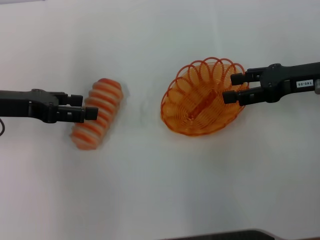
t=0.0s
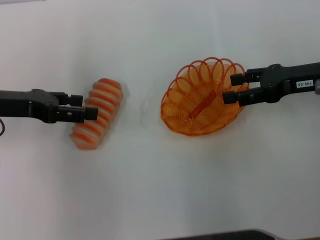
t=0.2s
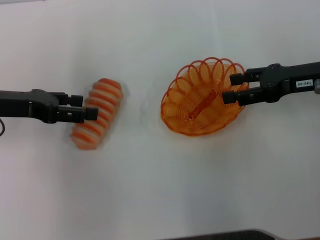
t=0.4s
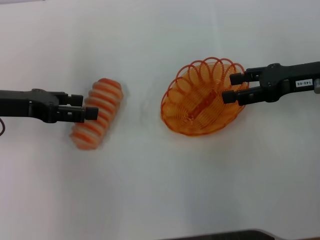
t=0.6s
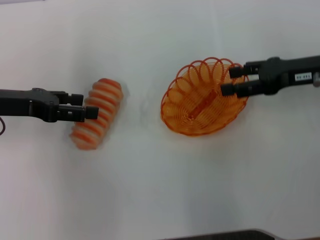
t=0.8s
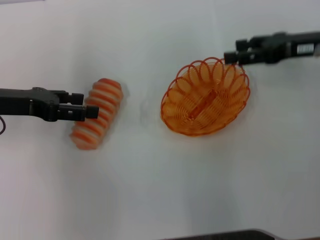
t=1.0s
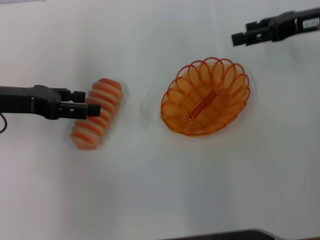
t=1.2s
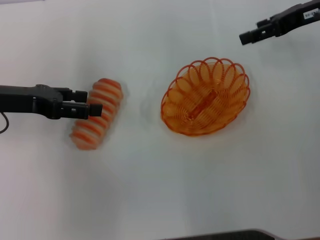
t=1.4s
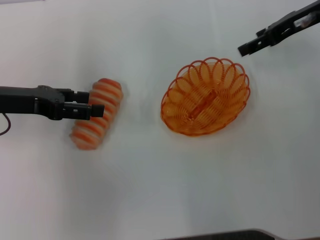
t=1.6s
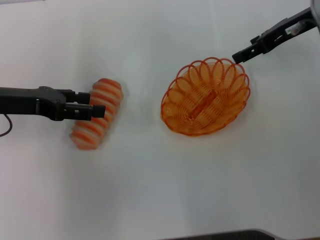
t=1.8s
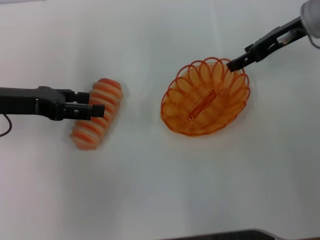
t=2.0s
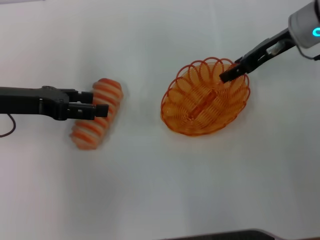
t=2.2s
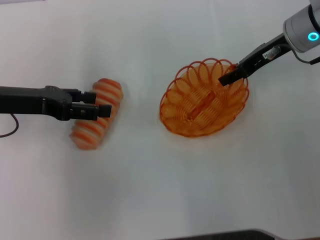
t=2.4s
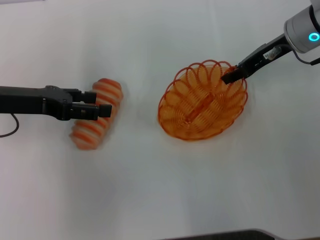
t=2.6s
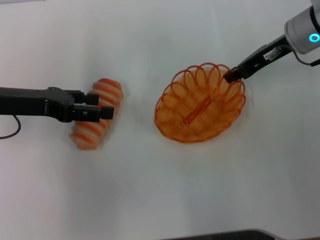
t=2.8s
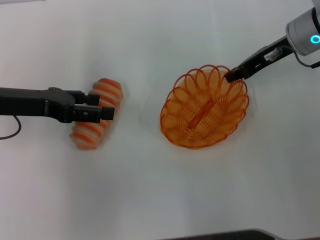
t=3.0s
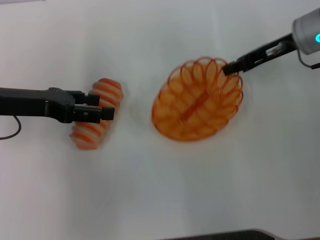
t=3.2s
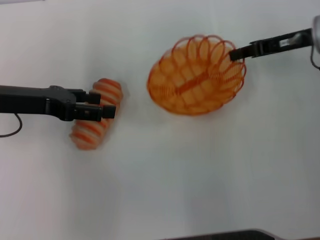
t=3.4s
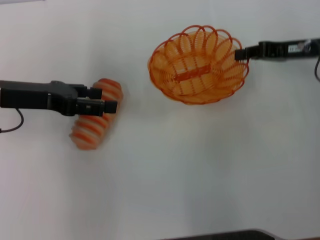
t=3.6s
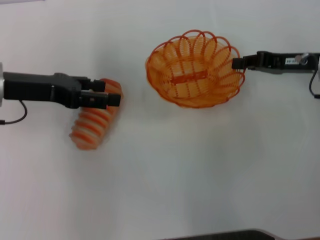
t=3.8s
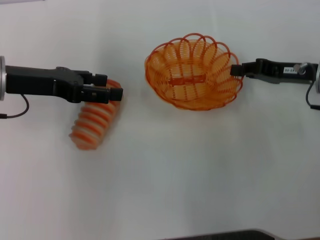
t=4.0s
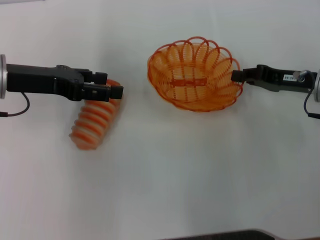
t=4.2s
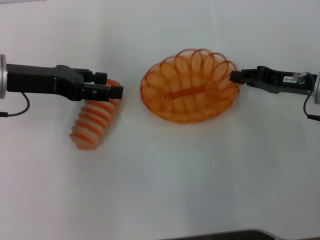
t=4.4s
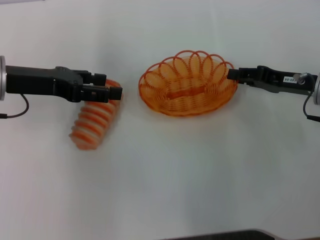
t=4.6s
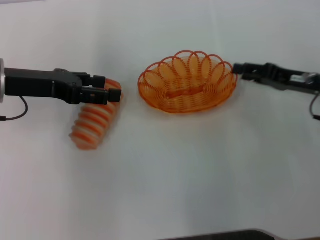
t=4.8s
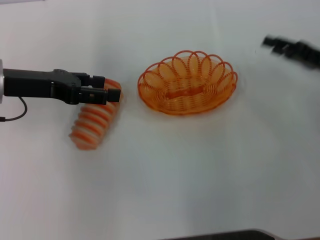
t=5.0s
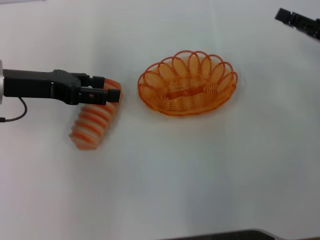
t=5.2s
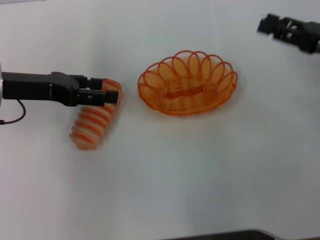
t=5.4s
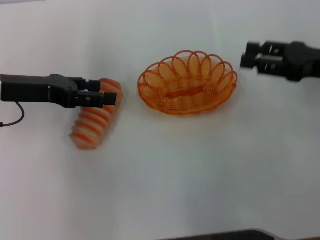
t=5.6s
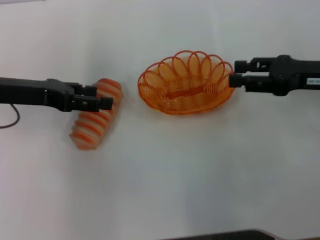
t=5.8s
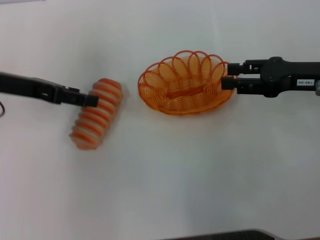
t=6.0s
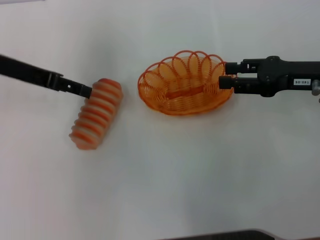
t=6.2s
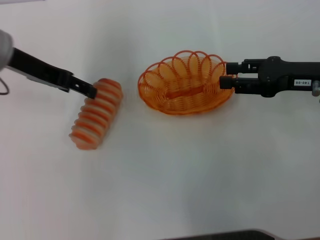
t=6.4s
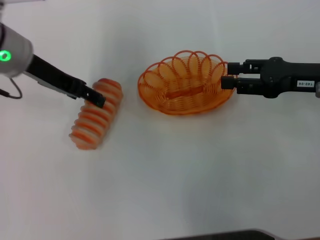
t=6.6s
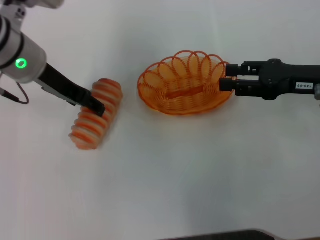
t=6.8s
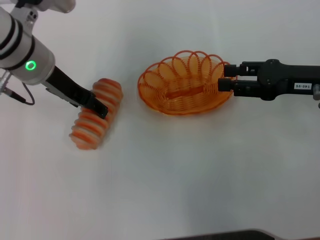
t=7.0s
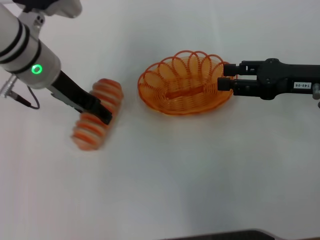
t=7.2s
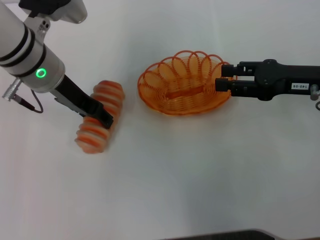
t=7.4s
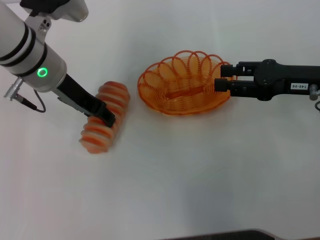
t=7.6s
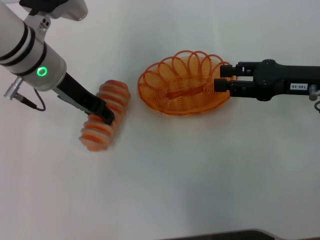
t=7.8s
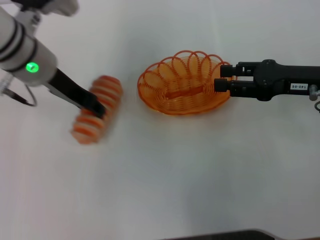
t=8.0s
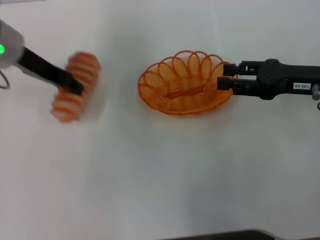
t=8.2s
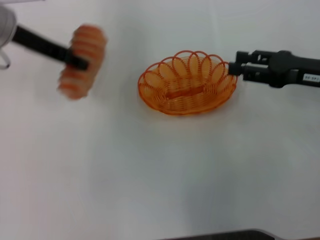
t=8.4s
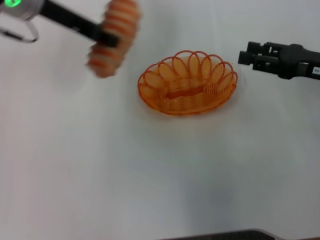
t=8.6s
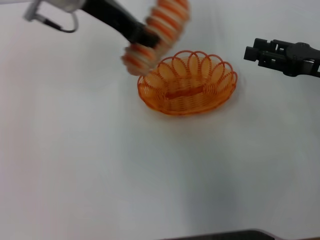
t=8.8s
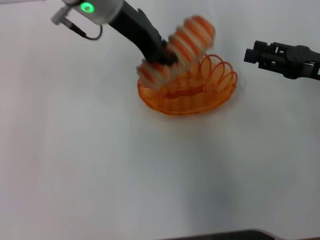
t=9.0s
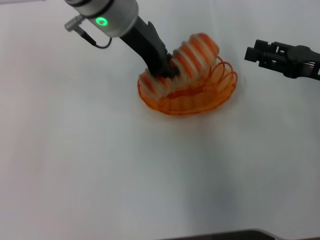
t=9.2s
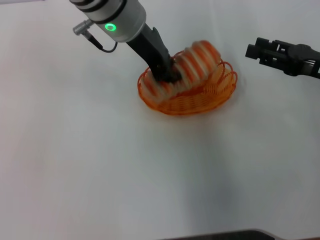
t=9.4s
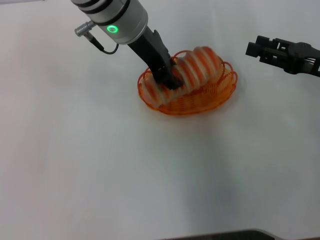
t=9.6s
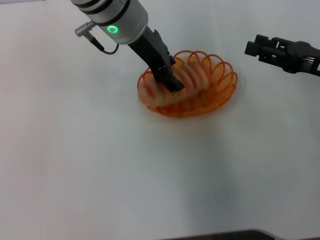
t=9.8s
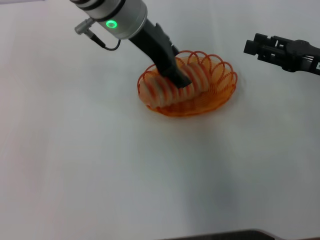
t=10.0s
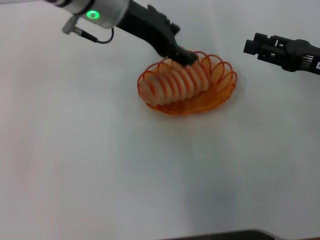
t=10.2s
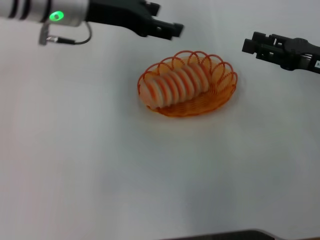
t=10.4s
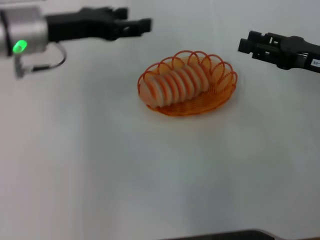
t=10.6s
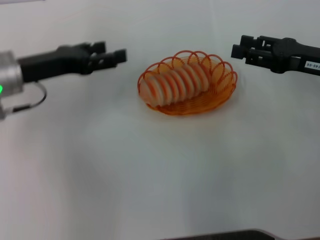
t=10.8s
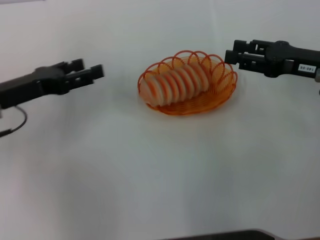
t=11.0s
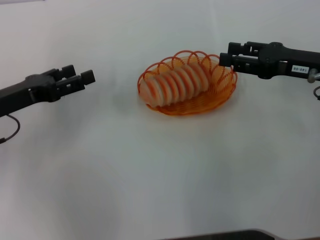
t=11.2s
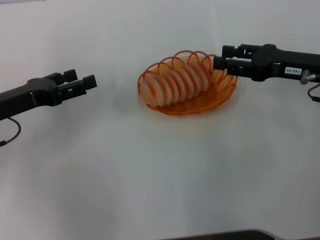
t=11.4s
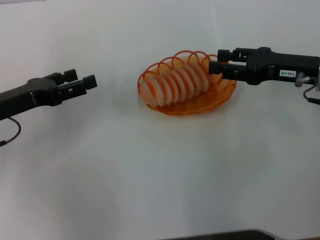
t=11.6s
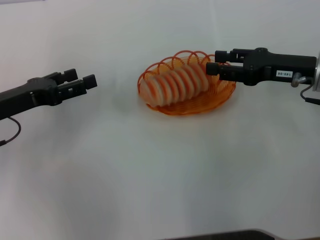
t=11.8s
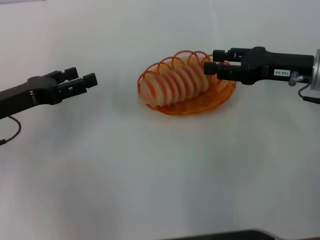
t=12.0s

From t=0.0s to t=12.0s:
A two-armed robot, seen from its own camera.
Step, from t=0.0s to t=3.0s: Pick up the basket with the right gripper.
Step, from t=3.2s to t=4.8s: Place the basket in the center of view with the right gripper.
Step, from t=5.0s to t=7.8s: Pick up the long bread with the left gripper.
Step, from t=8.2s to t=10.2s: Place the long bread into the basket with the left gripper.
From t=0.0s to t=1.6s: The right gripper travels forward and upward by roughly 10 cm.
From t=1.6s to t=3.0s: The right gripper shifts by approximately 5 cm, and closes.
From t=3.0s to t=4.4s: The right gripper is displaced backward and downward by approximately 10 cm.
From t=4.4s to t=6.0s: The right gripper shifts by about 5 cm, and opens up.
From t=6.0s to t=7.6s: The left gripper travels to the right by approximately 10 cm.
From t=7.6s to t=9.0s: The left gripper moves to the right and upward, about 10 cm, and closes up.
From t=9.0s to t=10.4s: The left gripper goes roughly 5 cm to the left, and opens up.
From t=10.4s to t=12.0s: The left gripper shifts about 20 cm to the left, downward and backward. The right gripper moves about 5 cm.

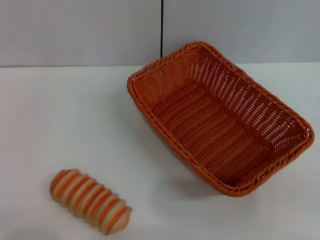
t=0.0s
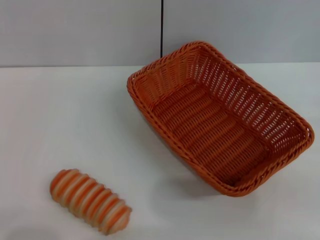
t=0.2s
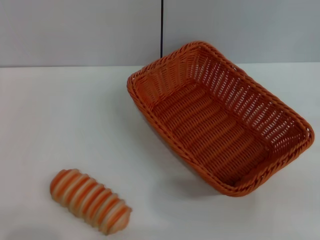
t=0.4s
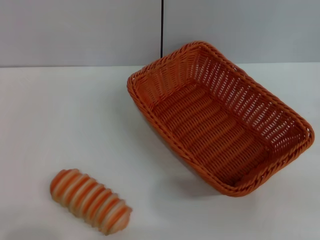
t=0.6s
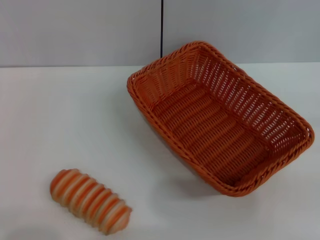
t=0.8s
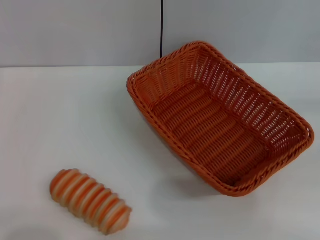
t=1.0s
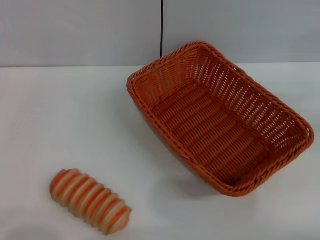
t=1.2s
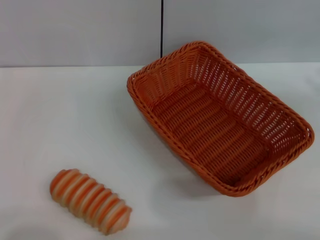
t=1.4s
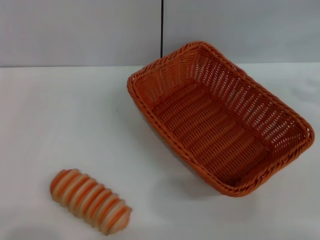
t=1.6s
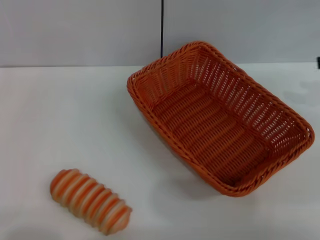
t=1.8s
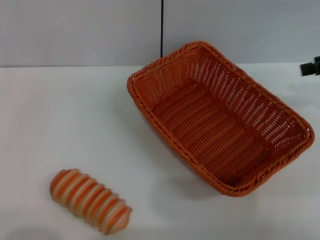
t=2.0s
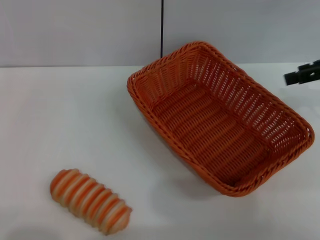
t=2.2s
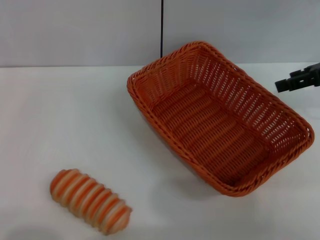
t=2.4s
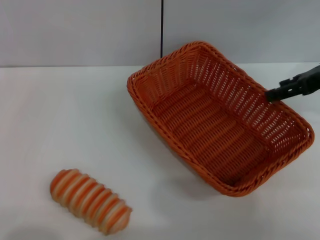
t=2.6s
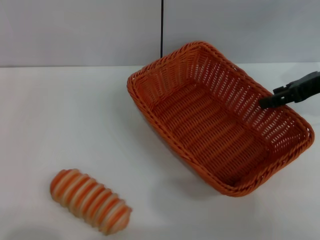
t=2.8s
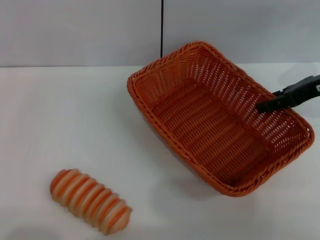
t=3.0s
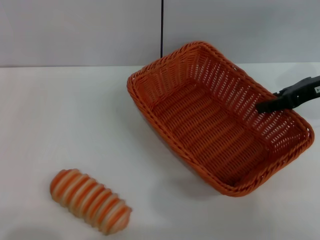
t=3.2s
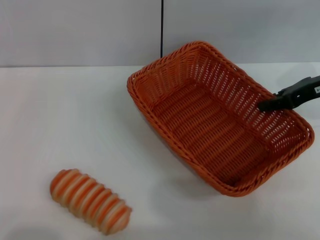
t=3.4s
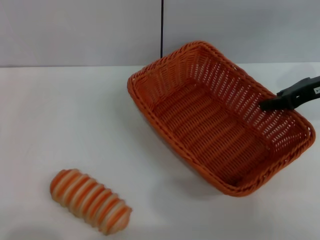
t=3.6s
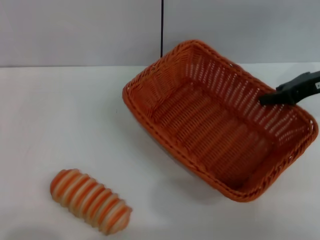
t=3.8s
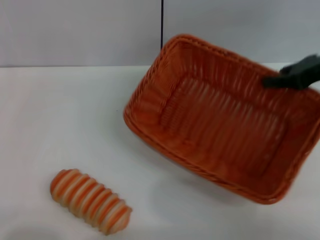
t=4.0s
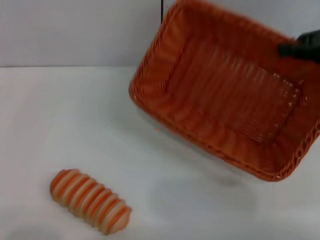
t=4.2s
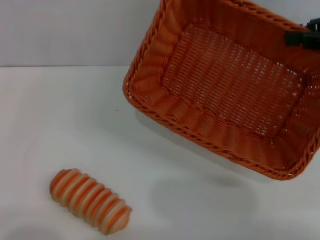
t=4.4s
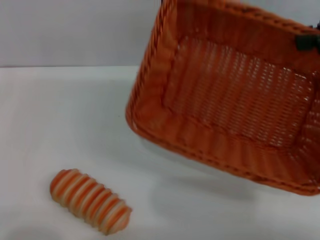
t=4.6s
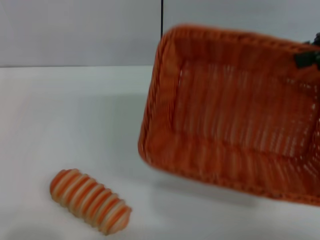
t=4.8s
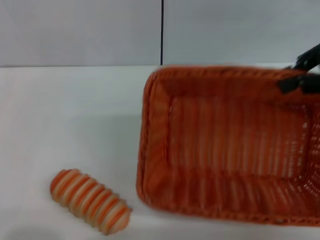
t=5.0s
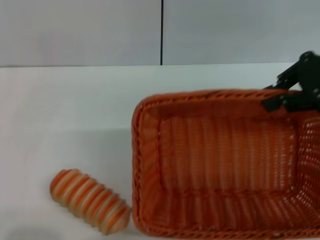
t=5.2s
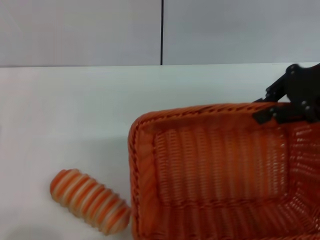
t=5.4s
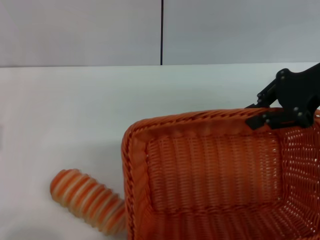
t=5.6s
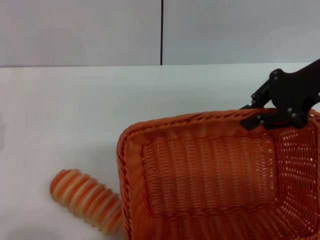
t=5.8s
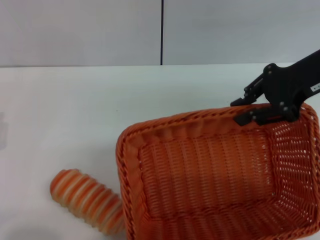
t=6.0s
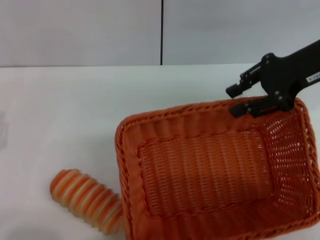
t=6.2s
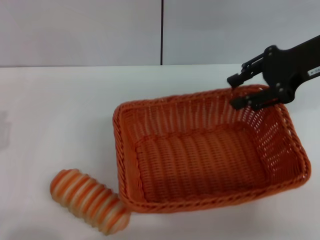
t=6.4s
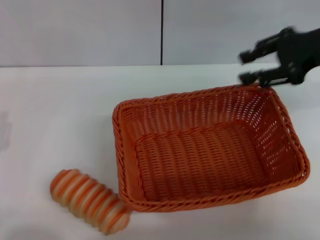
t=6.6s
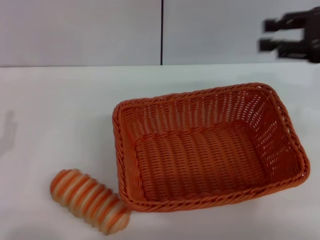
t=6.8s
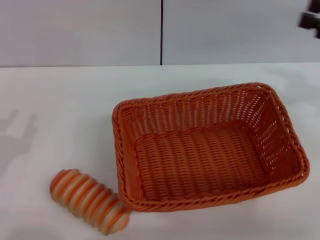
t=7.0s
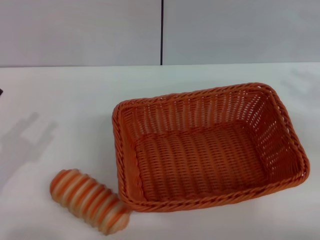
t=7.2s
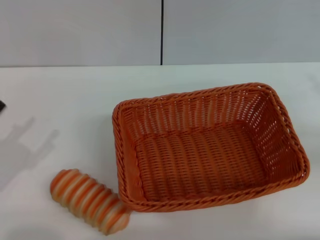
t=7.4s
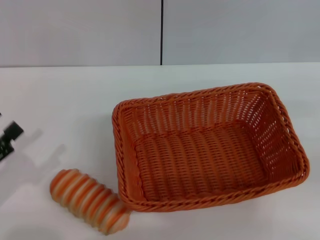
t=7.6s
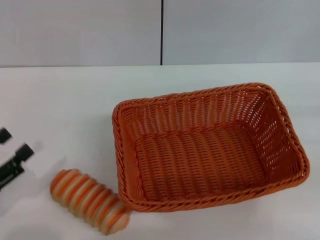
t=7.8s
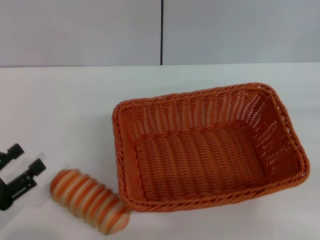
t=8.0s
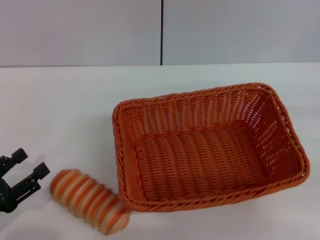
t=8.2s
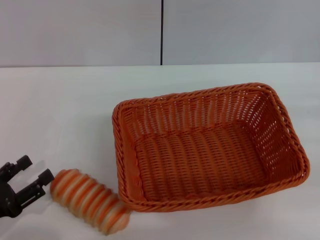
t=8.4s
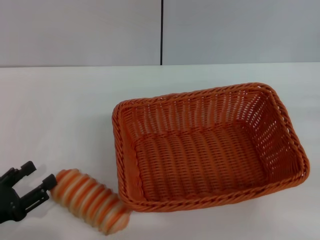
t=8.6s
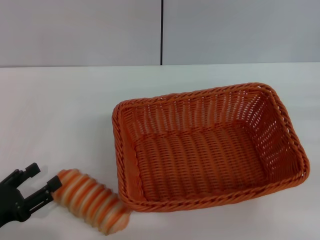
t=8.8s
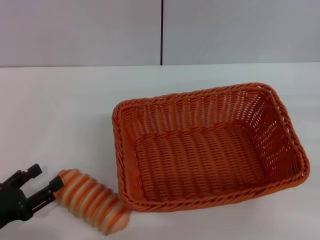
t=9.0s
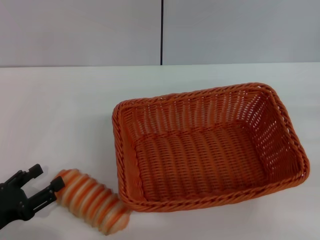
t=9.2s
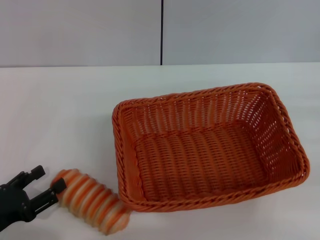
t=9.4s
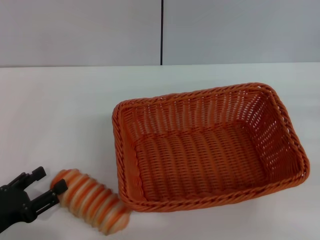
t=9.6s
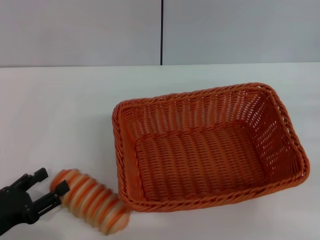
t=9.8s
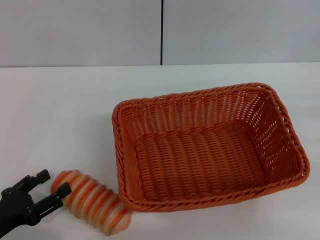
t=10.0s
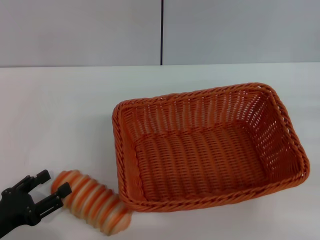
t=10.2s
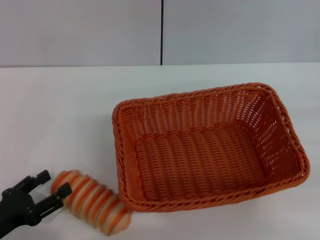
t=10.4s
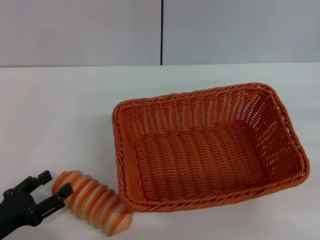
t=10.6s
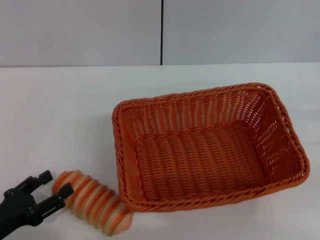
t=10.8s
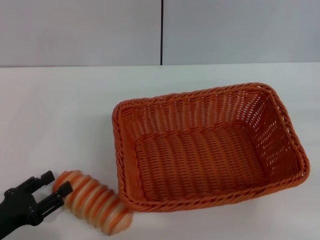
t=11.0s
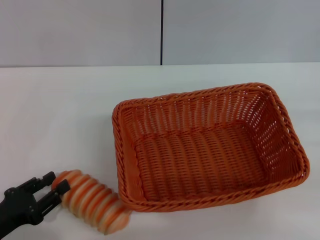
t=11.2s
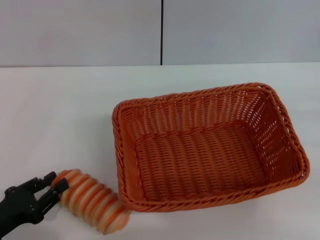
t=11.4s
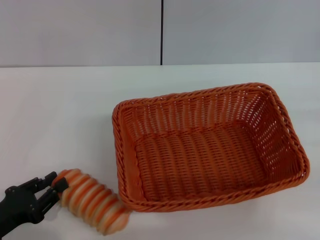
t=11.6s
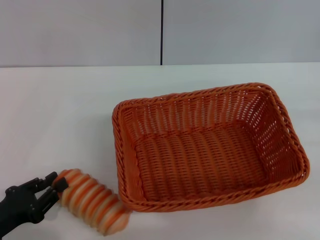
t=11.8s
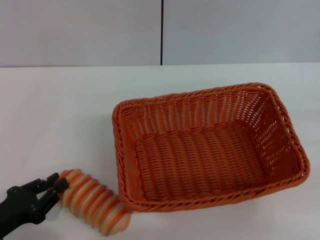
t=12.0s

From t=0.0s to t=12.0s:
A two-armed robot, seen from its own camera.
Step, from t=0.0s to t=4.2s: Pick up the light basket with the right gripper.
Step, from t=4.4s to t=6.6s: Place the light basket in the center of view with the right gripper.
From t=1.6s to t=3.0s: The right gripper shifts roughly 10 cm to the left and downward.
From t=3.0s to t=4.4s: The right gripper shifts roughly 10 cm upward, and closes up.
From t=4.4s to t=6.0s: The right gripper shifts some 10 cm to the left.
From t=6.0s to t=7.6s: The right gripper shifts approximately 25 cm to the right, backward and downward, and opens its fingers.
From t=7.6s to t=9.0s: The left gripper travels downward by about 5 cm.
From t=9.0s to t=10.4s: Both grippers stay put.
From t=10.4s to t=12.0s: The left gripper closes up.
